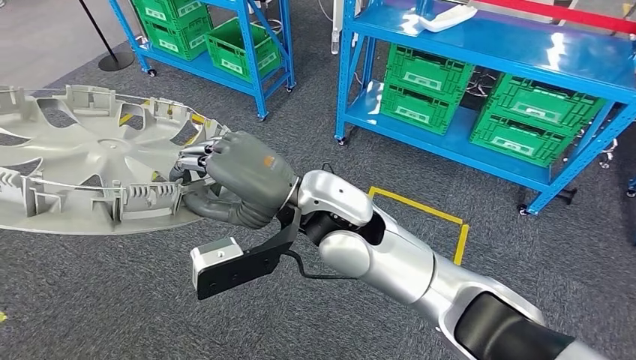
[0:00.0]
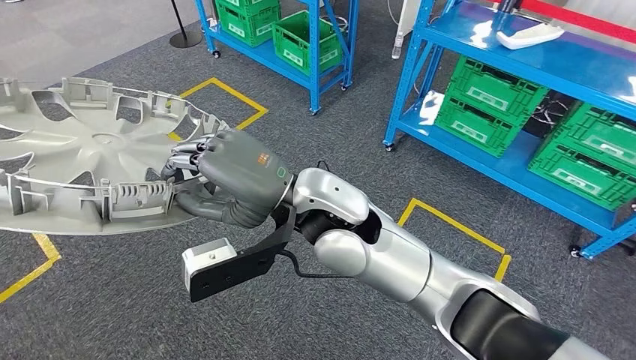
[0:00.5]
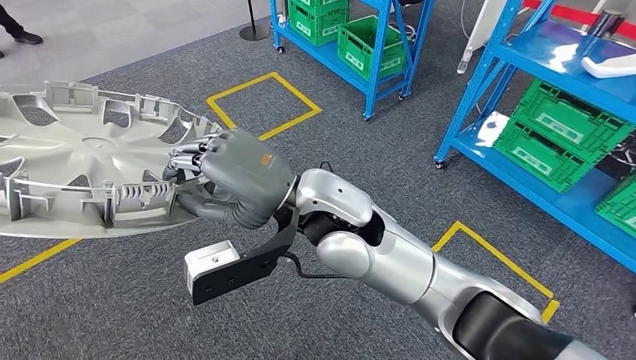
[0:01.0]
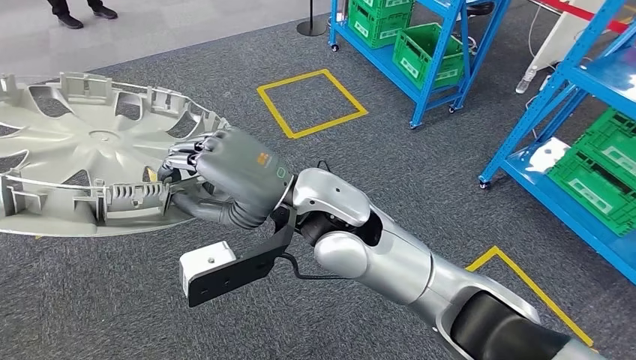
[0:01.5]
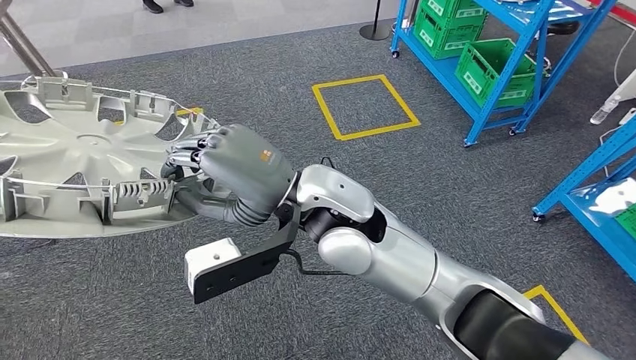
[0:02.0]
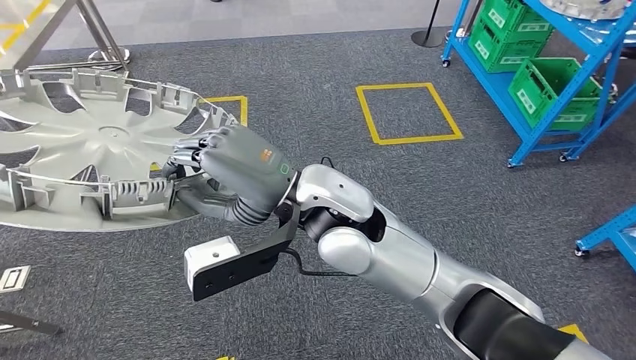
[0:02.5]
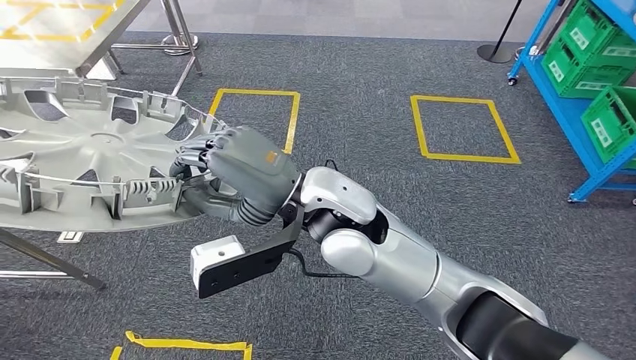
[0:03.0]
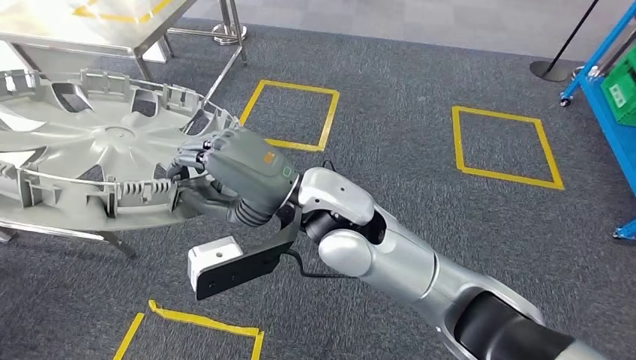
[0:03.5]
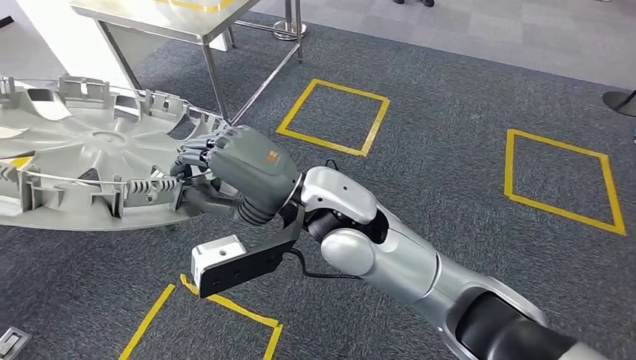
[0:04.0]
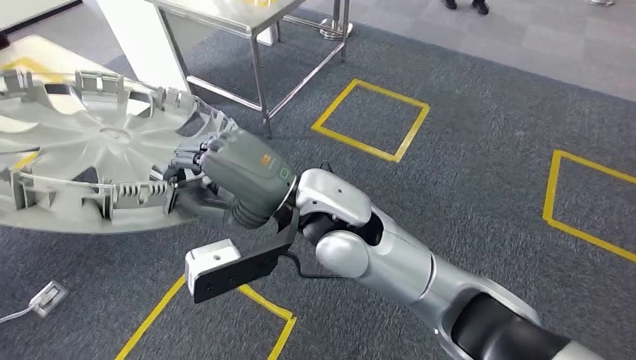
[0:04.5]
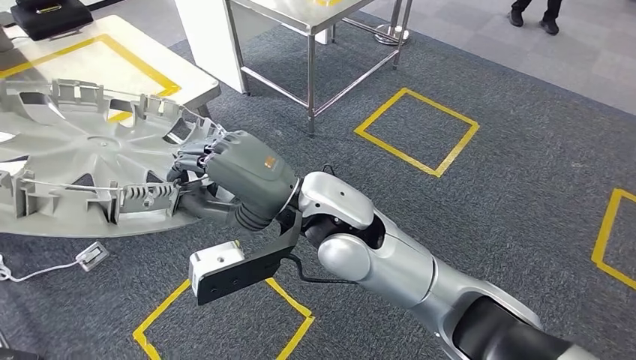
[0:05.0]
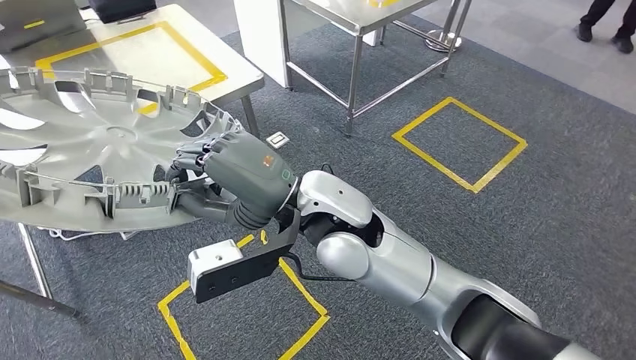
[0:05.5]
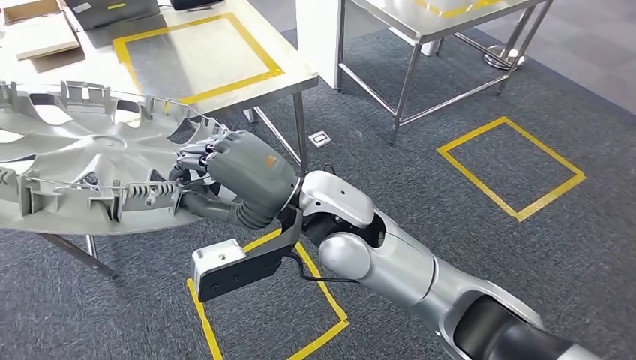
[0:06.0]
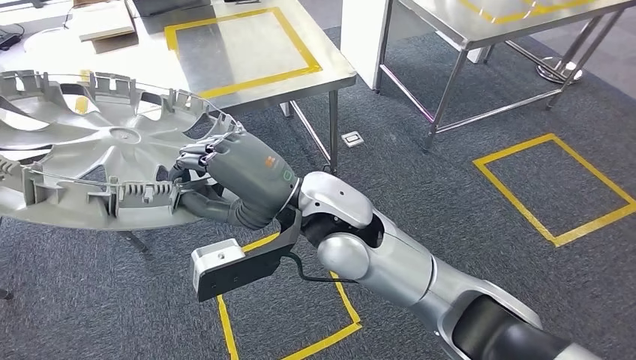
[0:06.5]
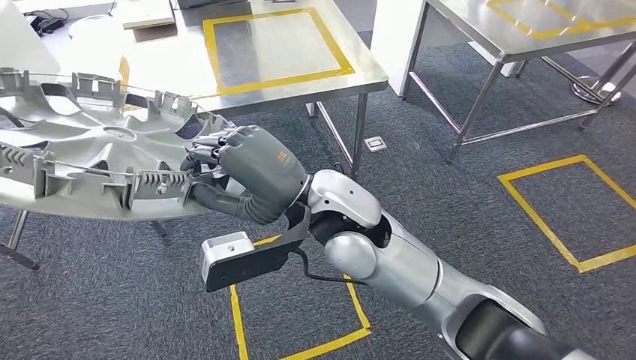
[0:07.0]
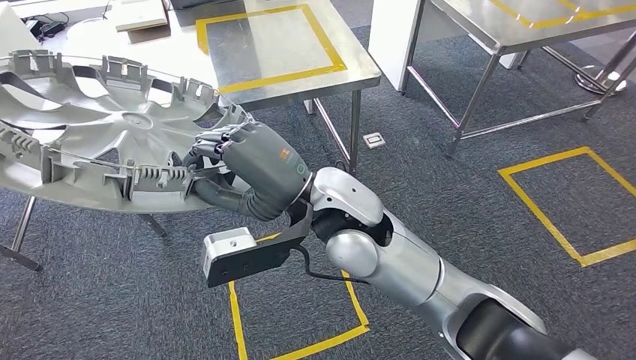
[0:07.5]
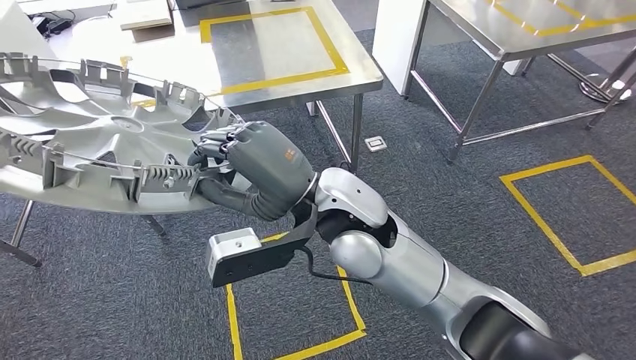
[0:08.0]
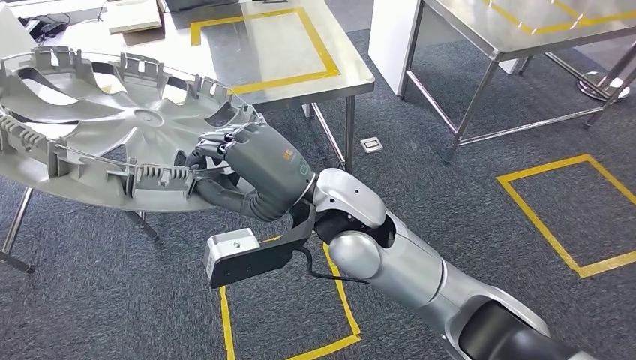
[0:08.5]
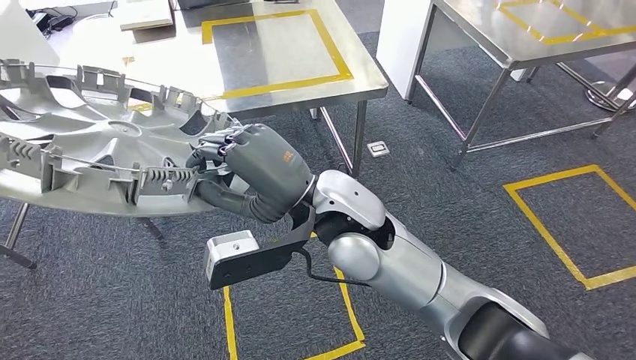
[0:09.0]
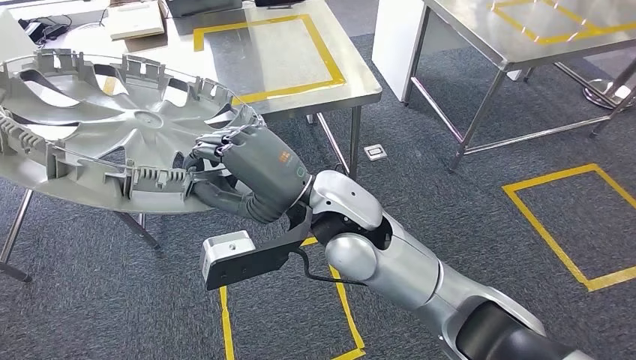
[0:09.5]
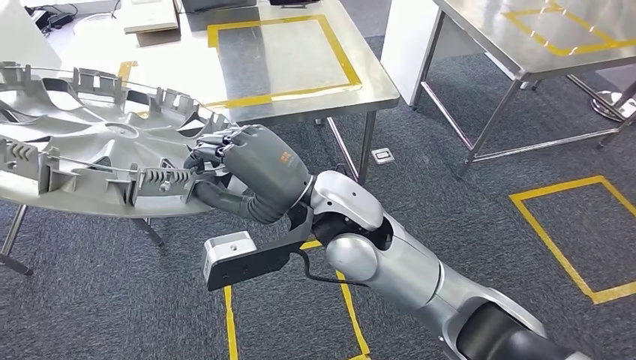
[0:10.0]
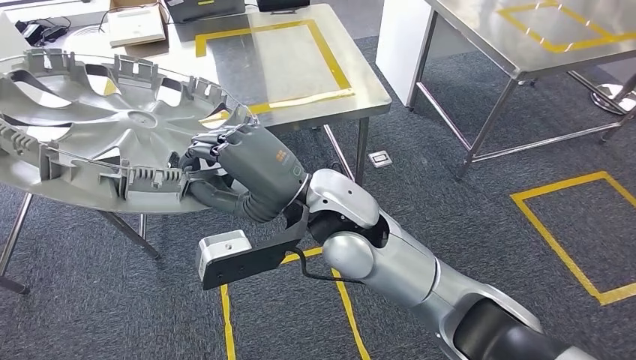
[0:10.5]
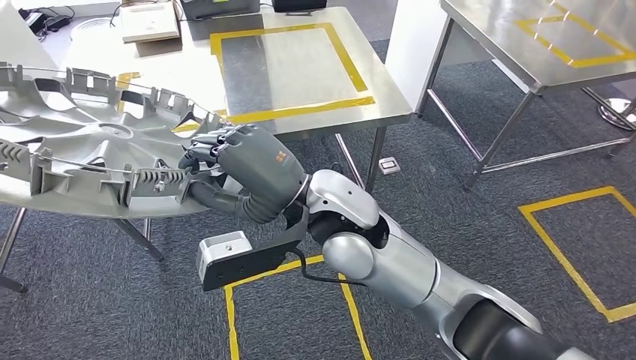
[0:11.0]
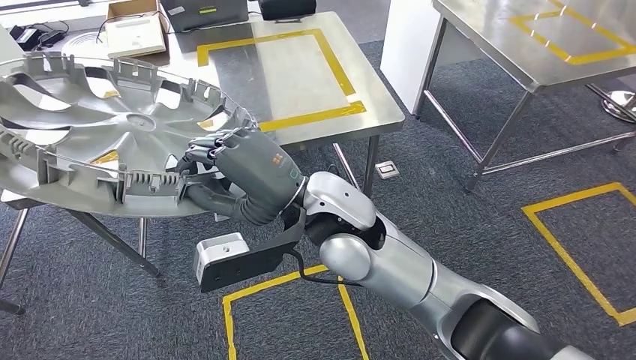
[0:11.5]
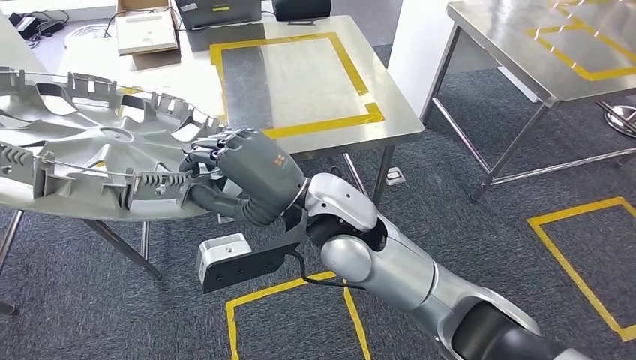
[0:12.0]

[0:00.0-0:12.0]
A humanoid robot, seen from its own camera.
Step, 0:00.0 to 0:06.5: Move the small component to the workbench.

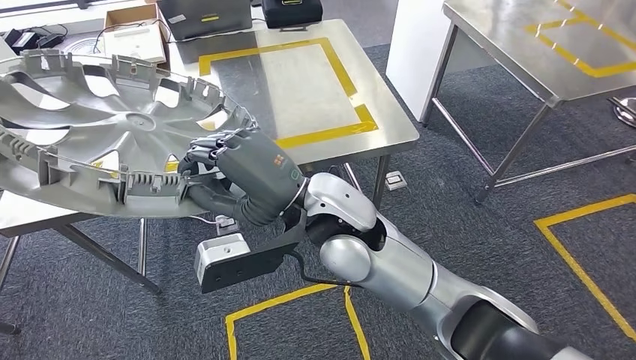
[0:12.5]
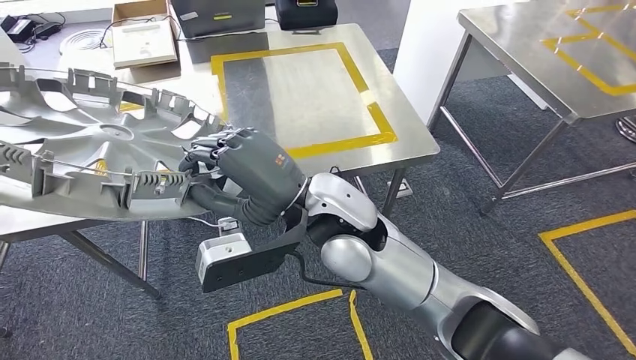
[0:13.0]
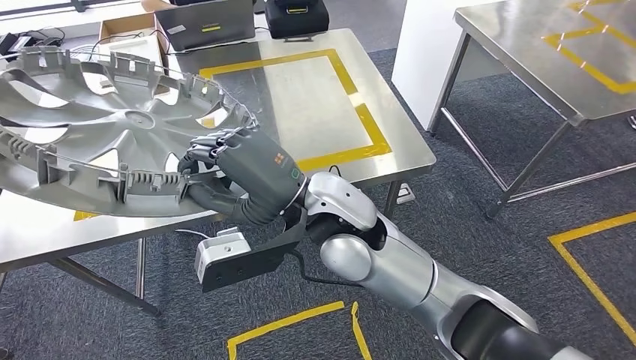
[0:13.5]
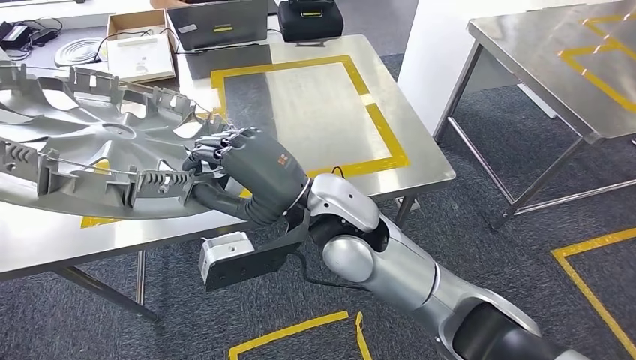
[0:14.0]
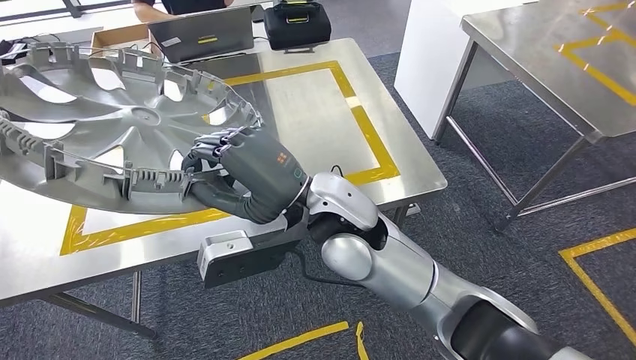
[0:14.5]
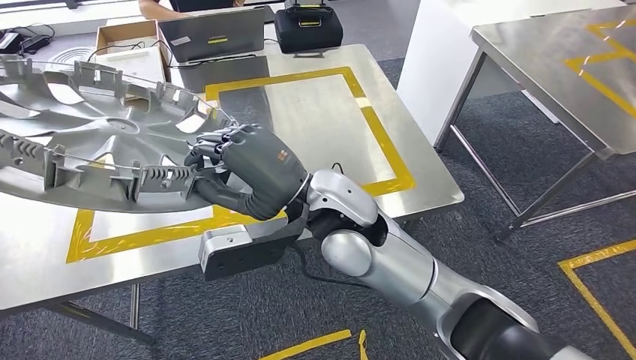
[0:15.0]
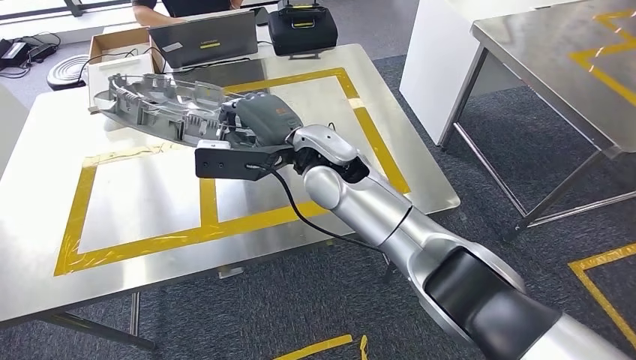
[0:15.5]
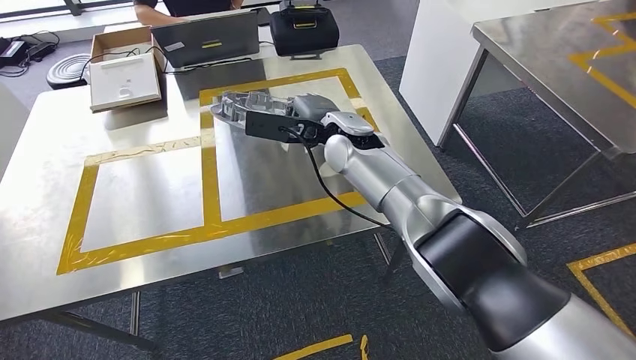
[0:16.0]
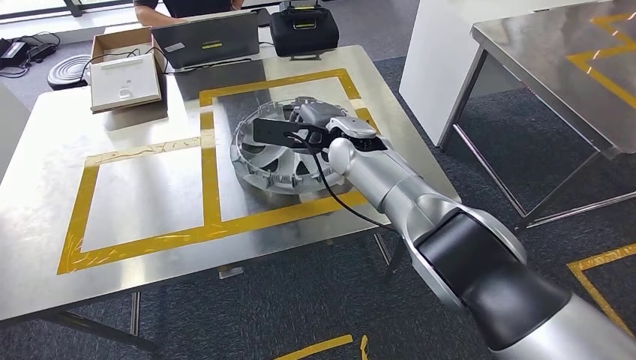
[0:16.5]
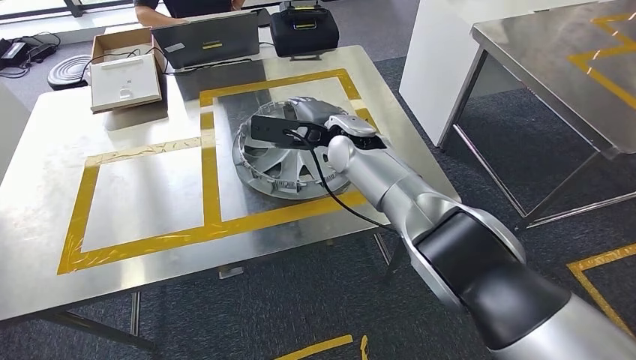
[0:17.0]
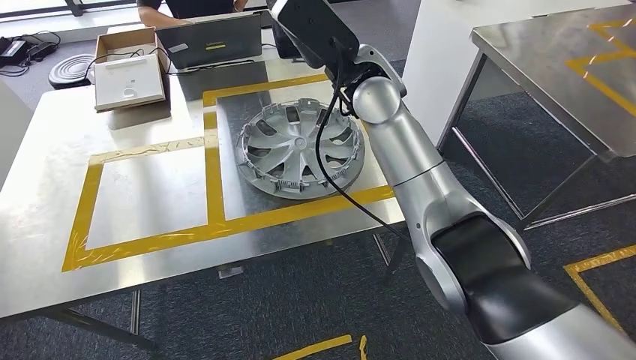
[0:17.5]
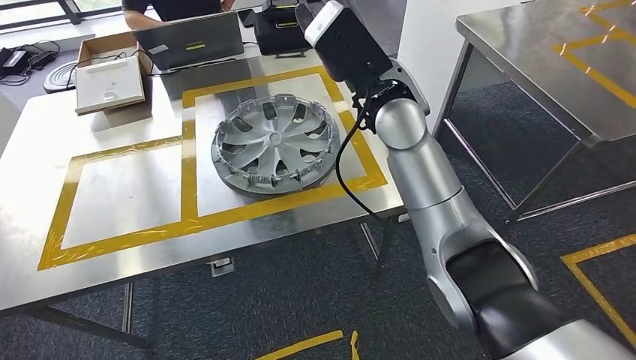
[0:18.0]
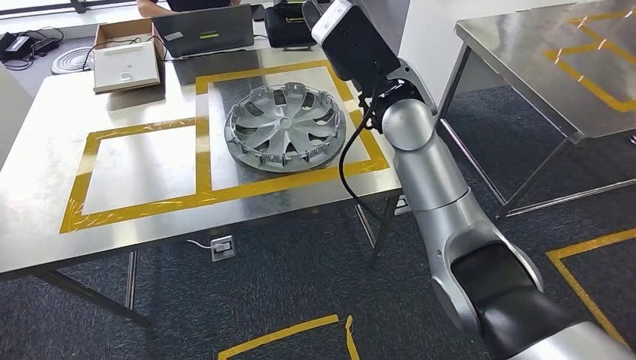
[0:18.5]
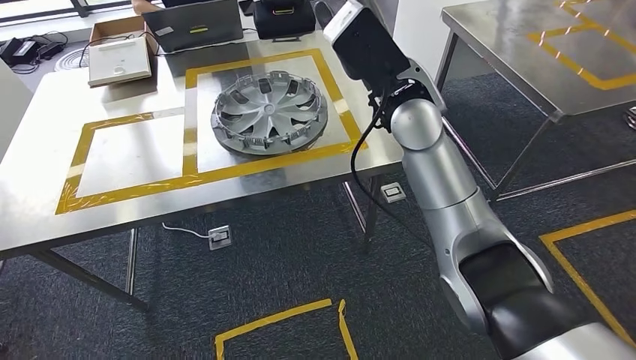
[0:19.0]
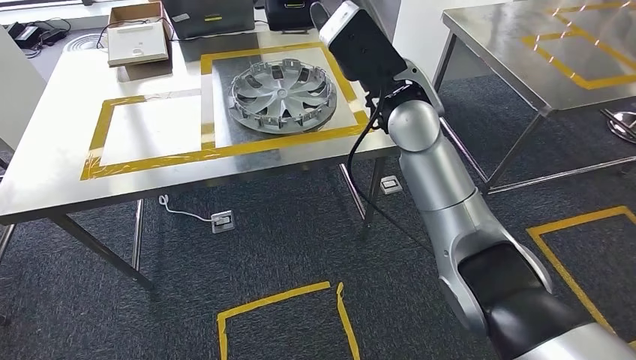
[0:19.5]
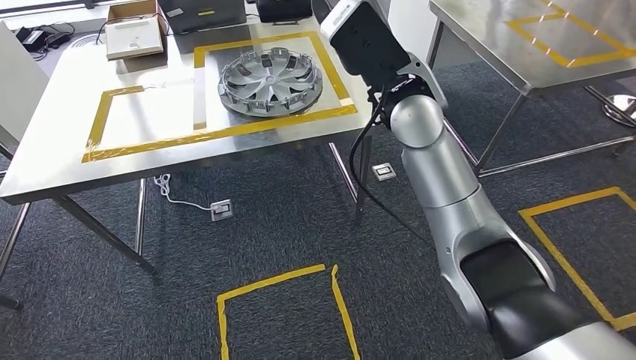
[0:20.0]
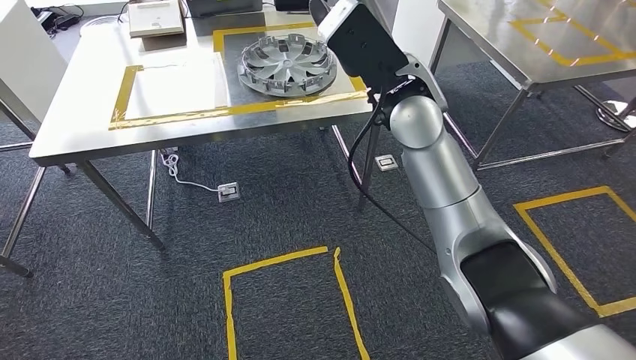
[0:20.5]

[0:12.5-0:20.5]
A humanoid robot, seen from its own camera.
Step, 0:12.5 to 0:17.0: Insert the small component into the corresponding slot on the workbench.
Step, 0:18.0 to 0:20.5: Return to the initial position at the workbench.
